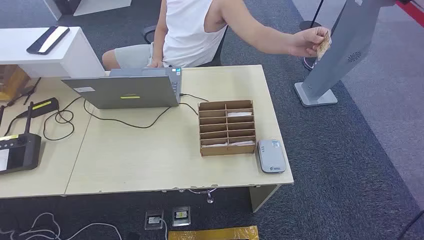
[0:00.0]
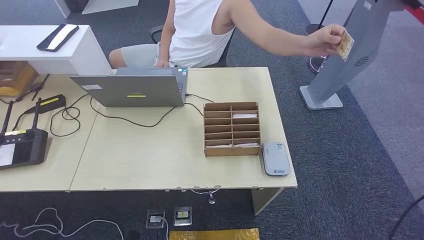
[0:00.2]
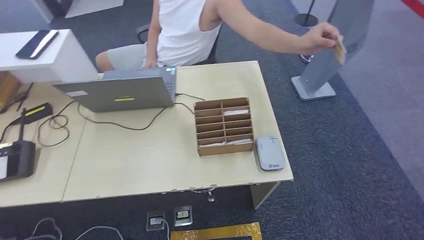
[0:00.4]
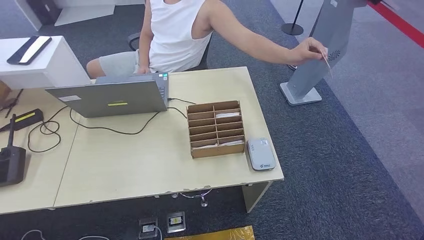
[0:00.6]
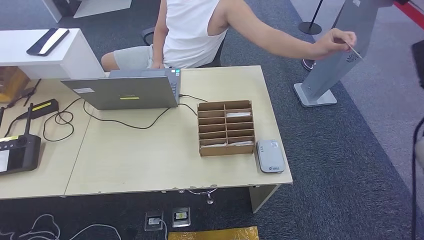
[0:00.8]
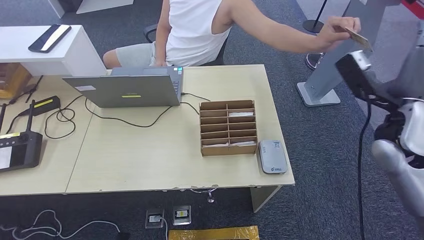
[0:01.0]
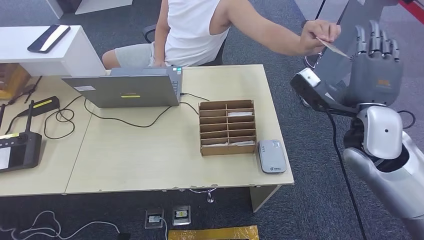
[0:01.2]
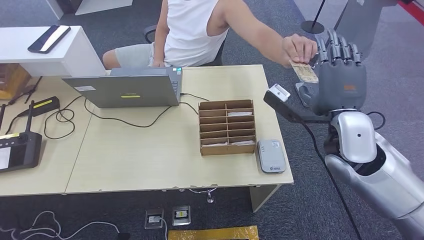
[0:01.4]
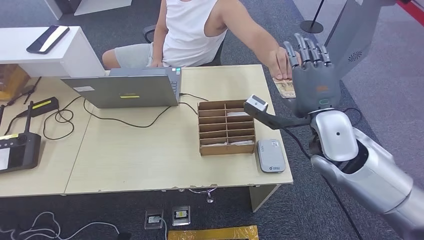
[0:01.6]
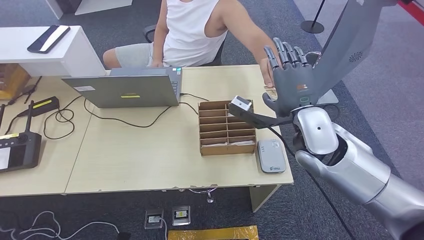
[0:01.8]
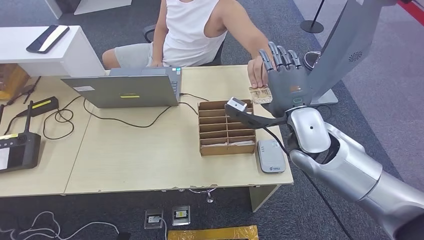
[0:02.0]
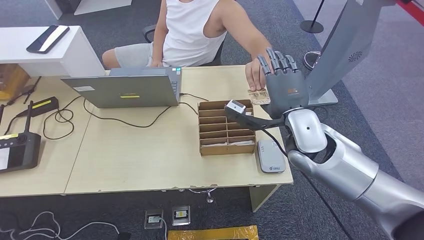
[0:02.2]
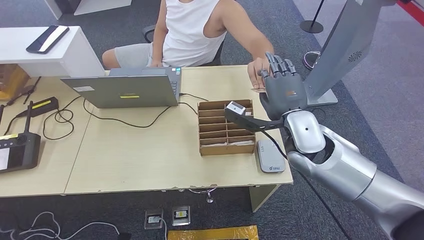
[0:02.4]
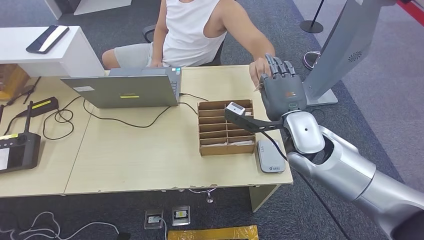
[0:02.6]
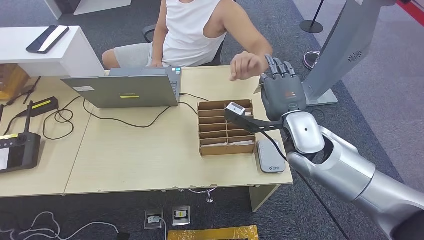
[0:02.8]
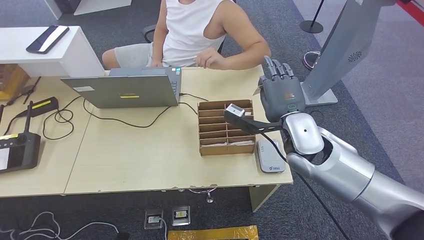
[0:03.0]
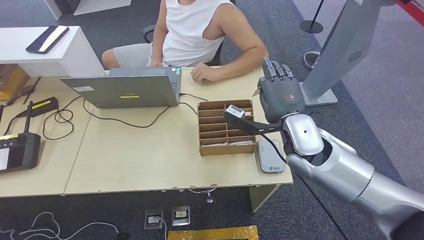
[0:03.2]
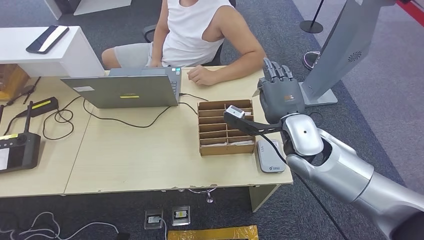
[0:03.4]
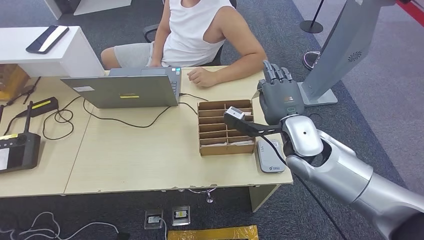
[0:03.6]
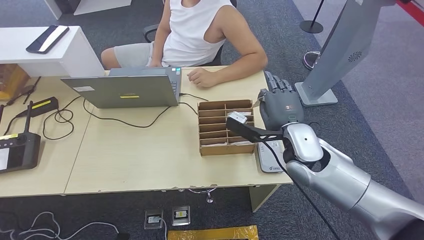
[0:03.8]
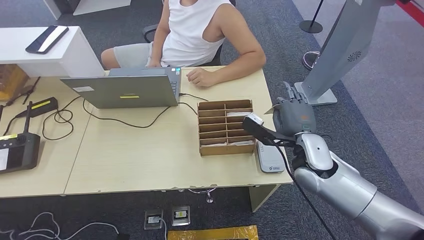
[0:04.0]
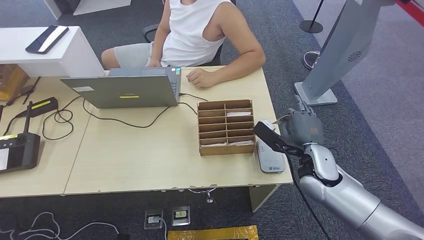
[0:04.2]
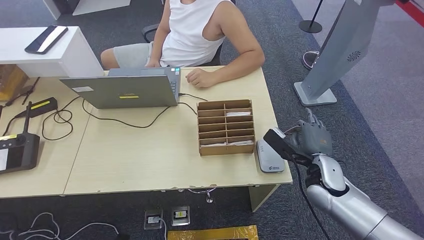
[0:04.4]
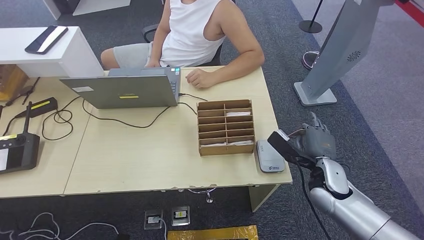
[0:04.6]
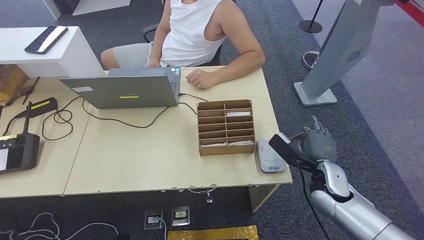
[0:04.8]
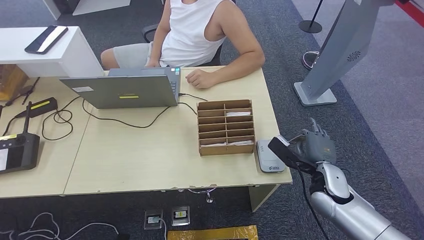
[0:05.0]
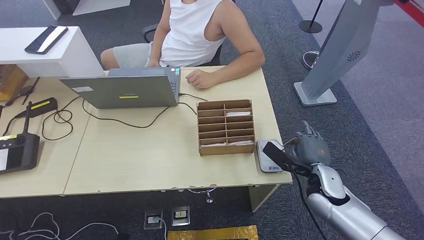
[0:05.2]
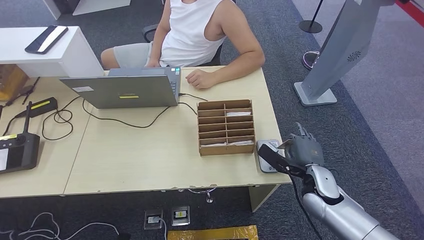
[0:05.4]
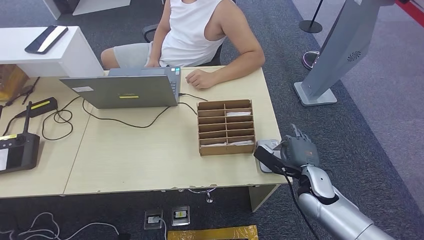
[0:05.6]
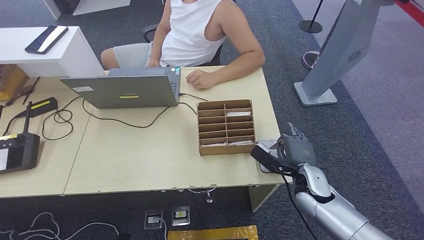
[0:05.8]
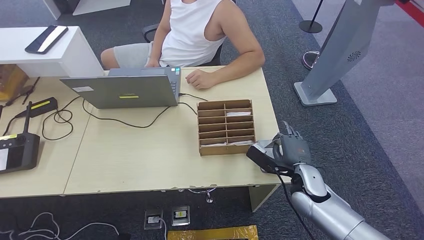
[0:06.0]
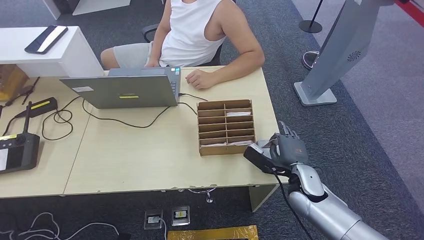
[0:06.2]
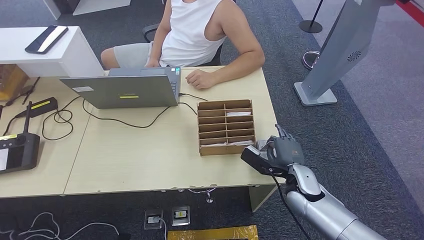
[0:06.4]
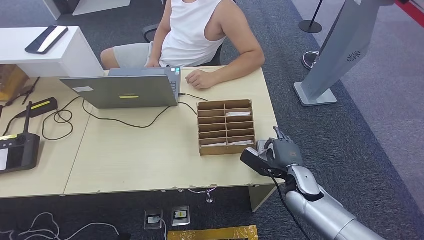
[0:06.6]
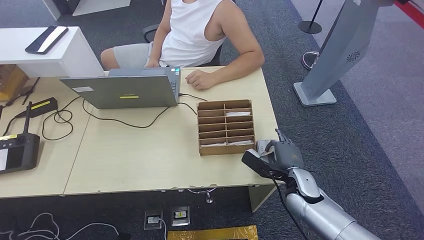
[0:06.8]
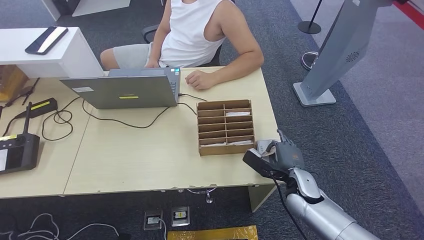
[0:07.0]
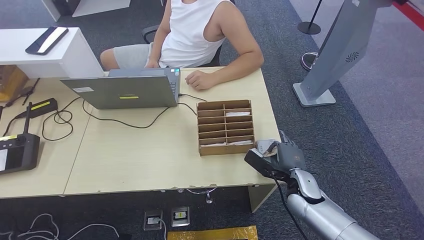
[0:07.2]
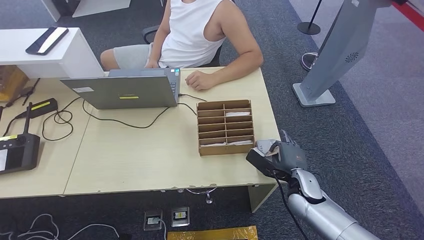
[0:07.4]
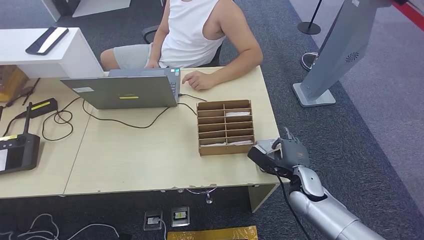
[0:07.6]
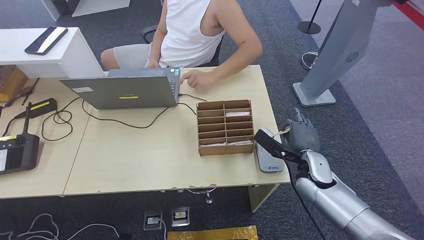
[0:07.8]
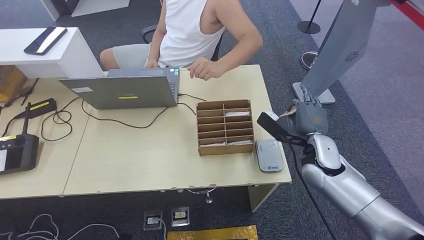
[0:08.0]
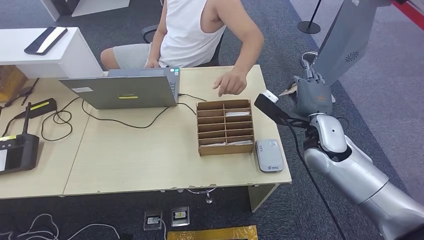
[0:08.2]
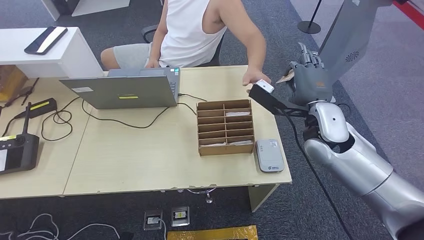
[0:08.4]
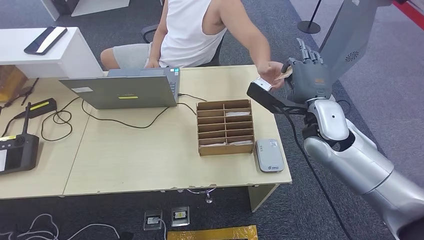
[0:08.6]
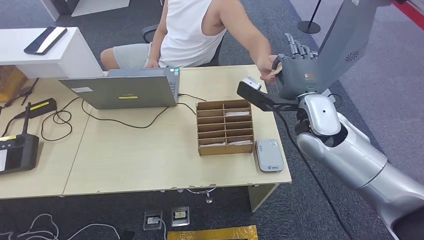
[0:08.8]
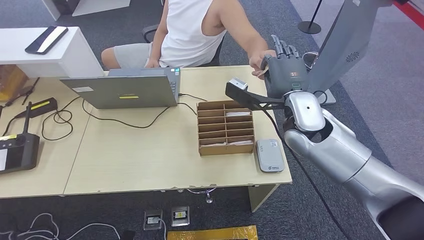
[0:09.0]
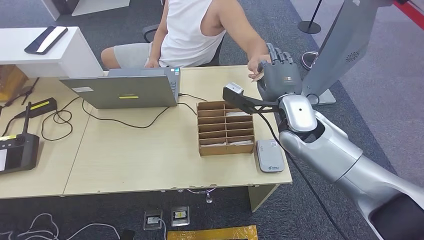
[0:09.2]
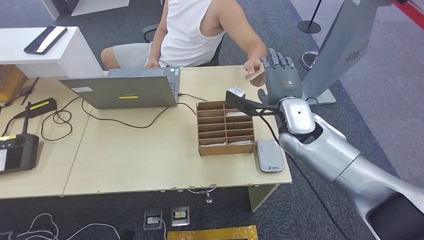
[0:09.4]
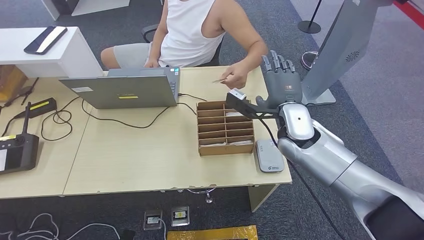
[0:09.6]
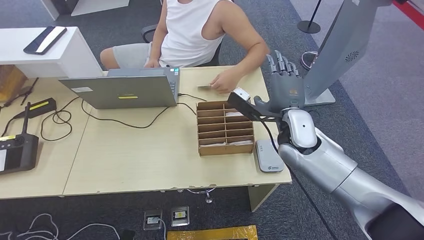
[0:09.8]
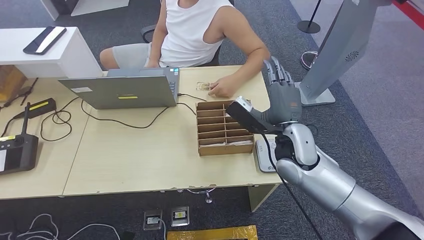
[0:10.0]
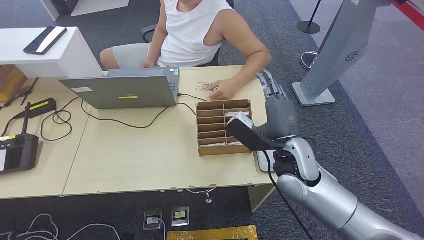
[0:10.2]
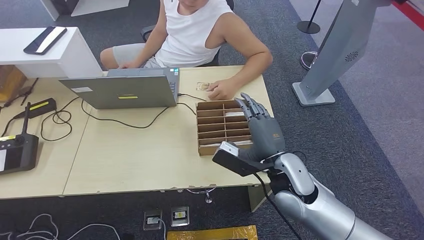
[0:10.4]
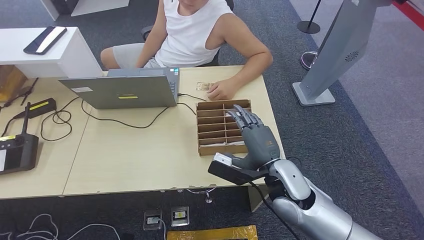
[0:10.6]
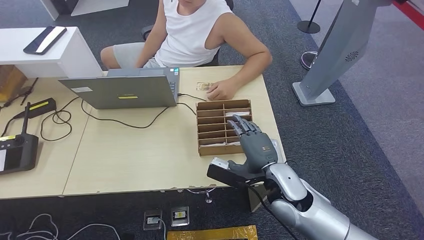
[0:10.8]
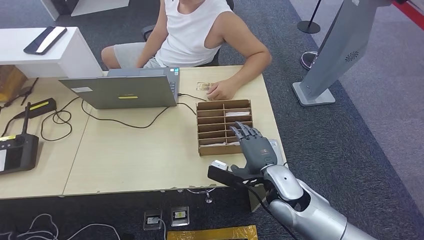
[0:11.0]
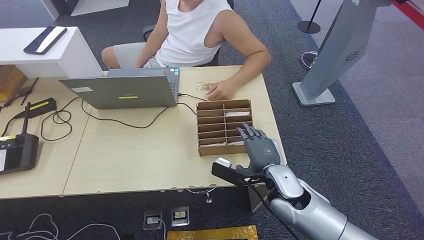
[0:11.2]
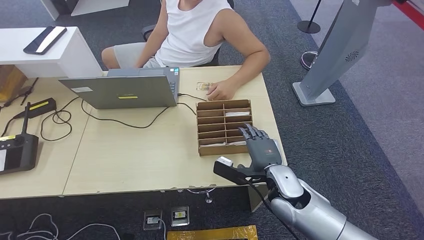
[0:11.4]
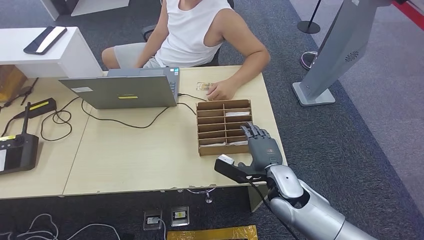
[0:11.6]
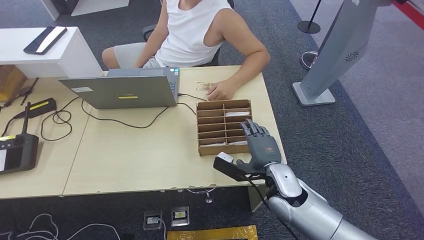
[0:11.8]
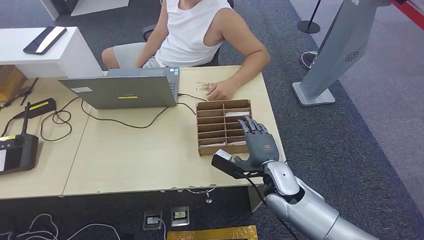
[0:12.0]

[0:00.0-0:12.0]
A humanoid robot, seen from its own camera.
Step, 0:00.0 to 0:02.8: Take the ID card from the person's hand.
Step, 0:03.0 to 0:06.6: Place the ID card on the card reader.
Step, 0:06.8 to 0:09.4: Hand the ID card to the person.
0:01.6 to 0:03.0: The right hand shifts by approximately 5 cm.
0:03.0 to 0:04.4: The right hand goes roughly 15 cm downward and to the right.
0:04.4 to 0:06.0: The right hand moves approximately 5 cm.
0:06.0 to 0:07.6: The hands move only a little.
0:07.6 to 0:09.0: The right hand heads upward, covering approximately 20 cm.
0:10.4 to 0:12.0: The right hand is displaced downward by roughly 5 cm.

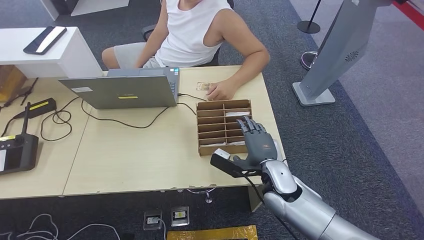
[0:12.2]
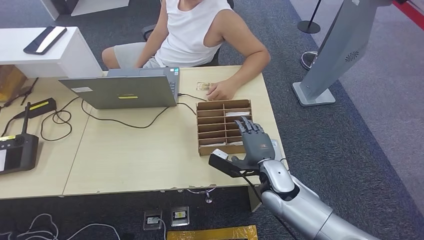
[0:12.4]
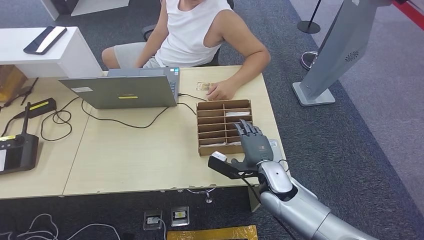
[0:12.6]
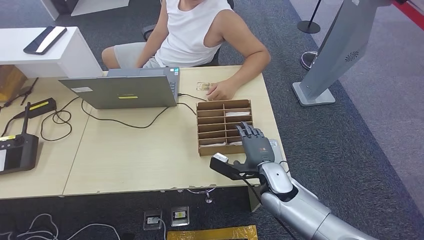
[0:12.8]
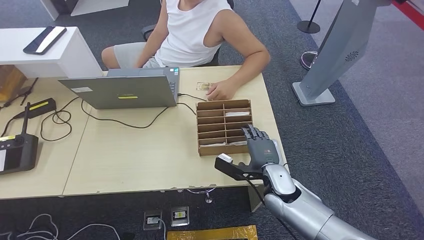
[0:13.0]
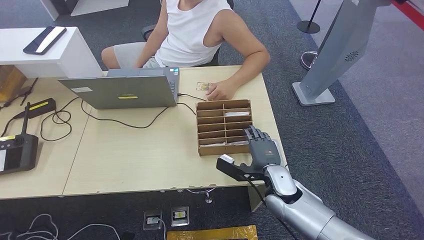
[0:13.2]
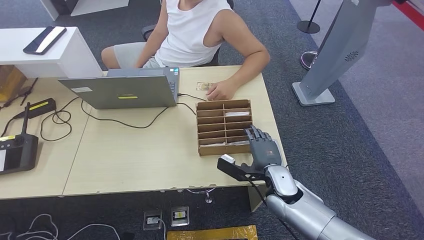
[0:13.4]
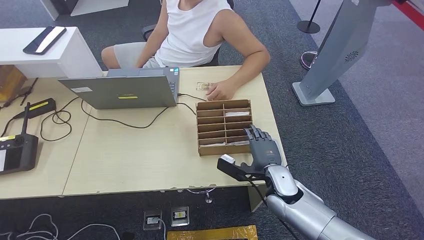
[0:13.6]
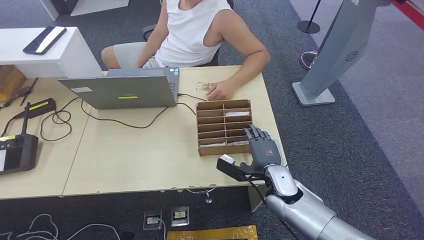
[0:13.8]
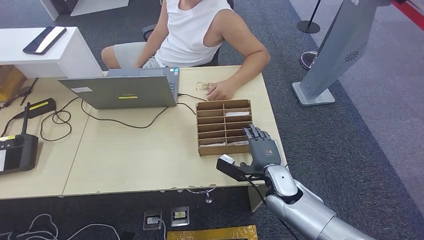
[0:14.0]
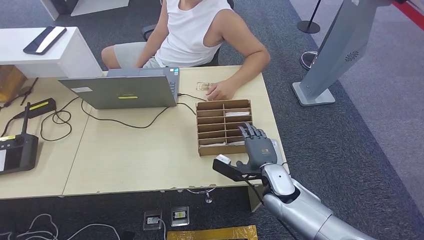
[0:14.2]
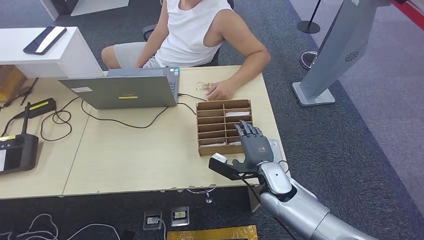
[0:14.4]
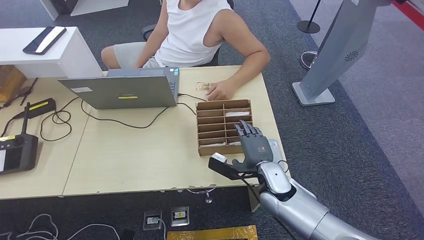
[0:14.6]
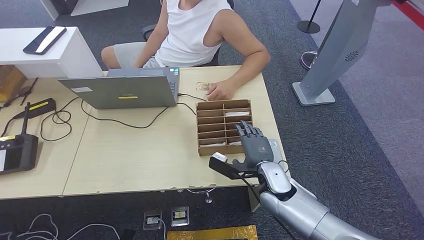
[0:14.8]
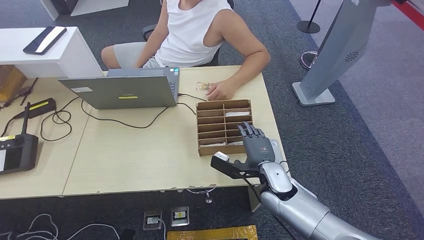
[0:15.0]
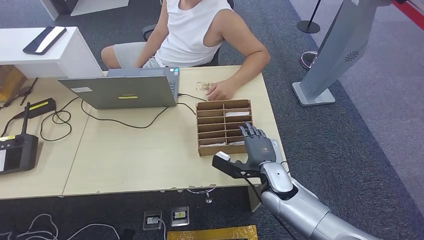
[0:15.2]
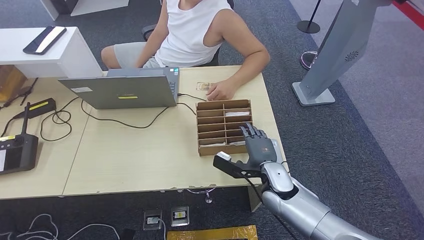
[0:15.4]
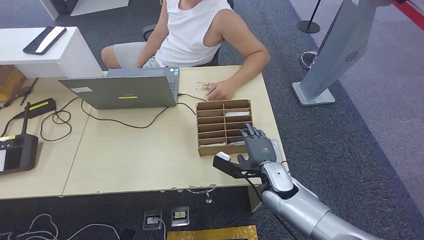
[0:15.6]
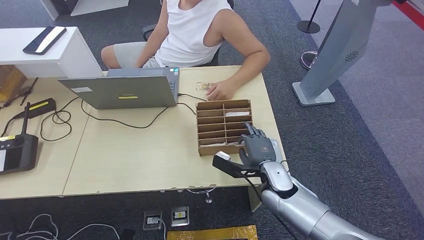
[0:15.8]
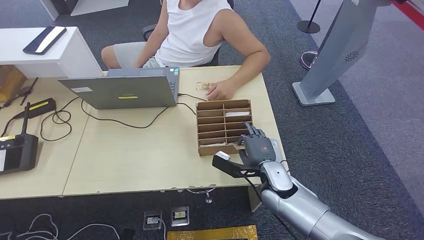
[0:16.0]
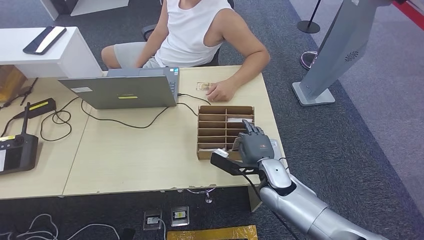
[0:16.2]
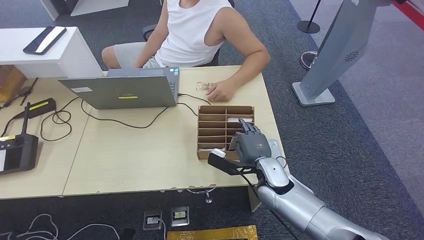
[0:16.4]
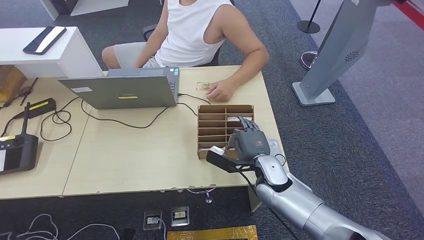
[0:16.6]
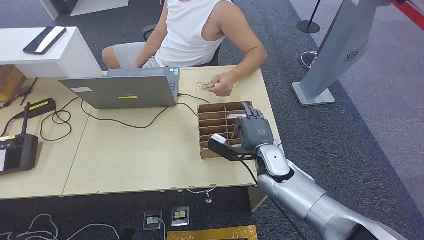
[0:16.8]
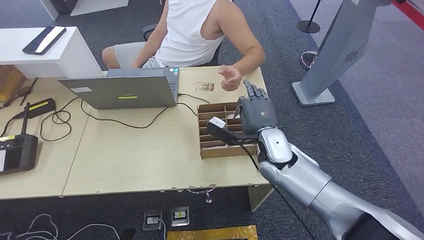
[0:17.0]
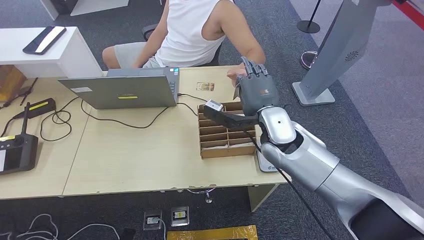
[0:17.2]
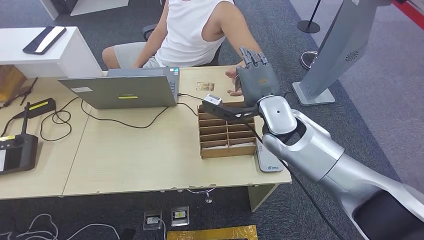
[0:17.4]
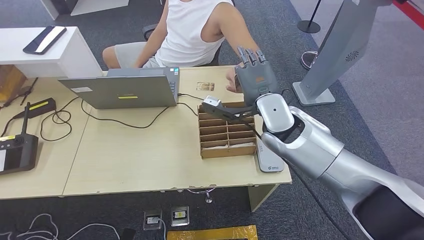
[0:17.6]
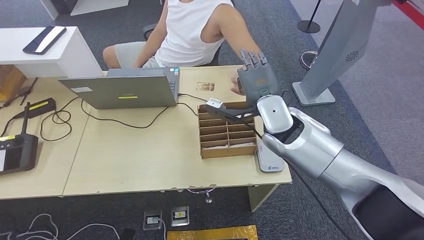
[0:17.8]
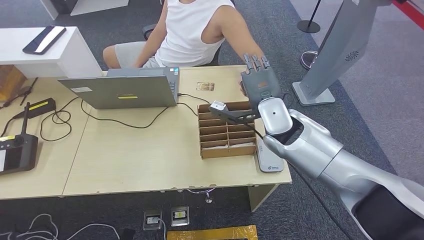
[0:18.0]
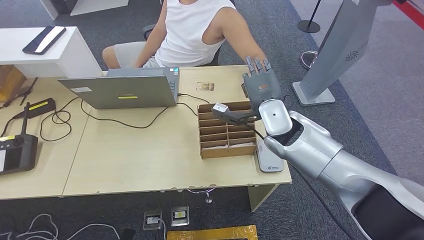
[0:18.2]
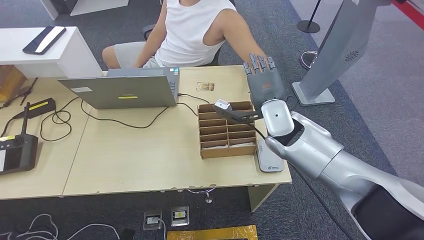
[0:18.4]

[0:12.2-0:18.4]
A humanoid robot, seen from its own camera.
Step, 0:12.2 to 0:17.2: Pick up the room key from the key card box.
Step, 0:17.8 to 0:18.4: Hand the room key to the person.
0:12.2 to 0:15.4: The hands move only a little.
0:15.4 to 0:16.8: The right hand ends up approximately 5 cm from where it was.
0:16.8 to 0:18.4: The right hand shifts about 15 cm upward and forward.
